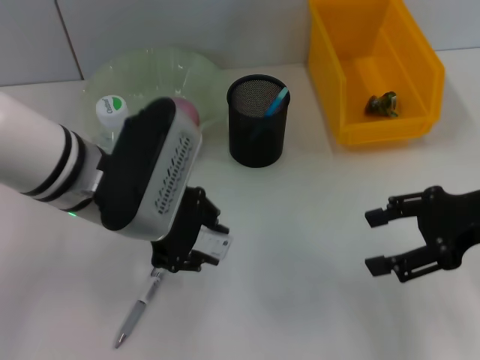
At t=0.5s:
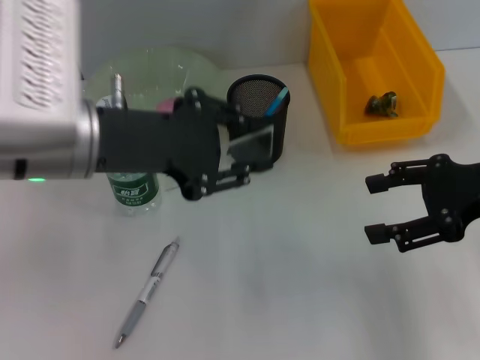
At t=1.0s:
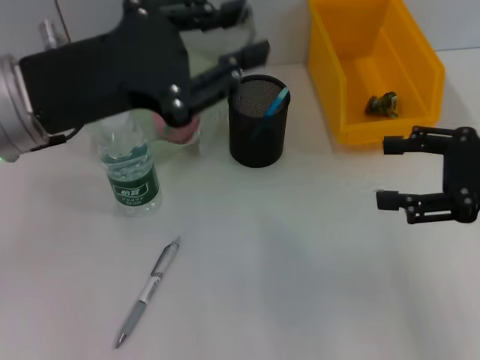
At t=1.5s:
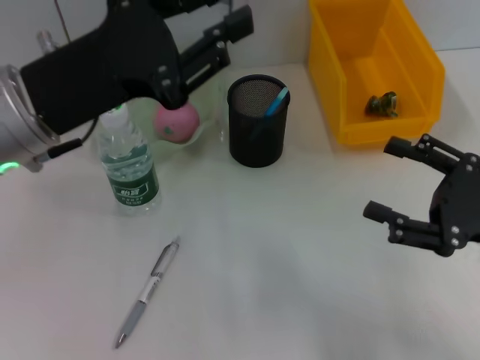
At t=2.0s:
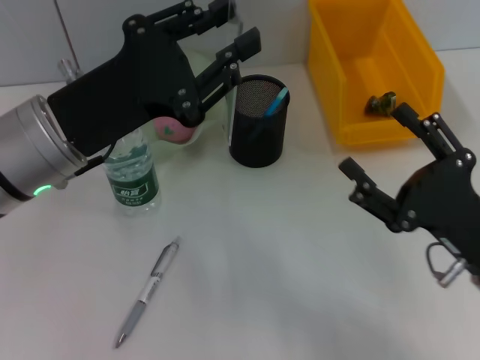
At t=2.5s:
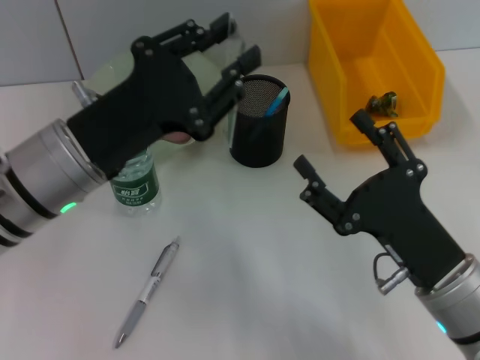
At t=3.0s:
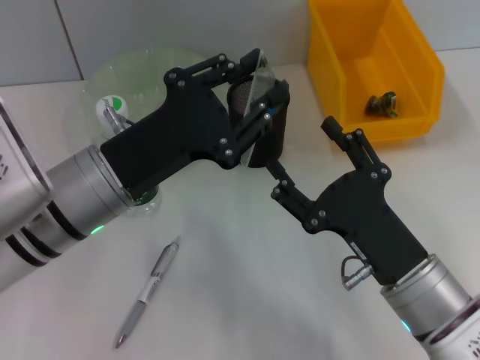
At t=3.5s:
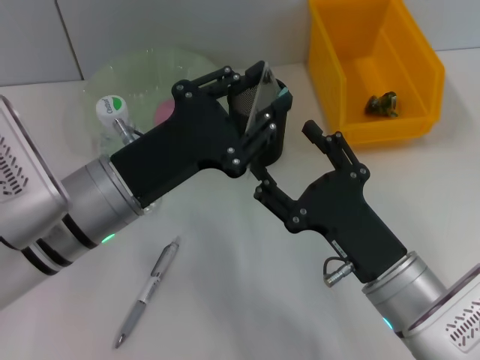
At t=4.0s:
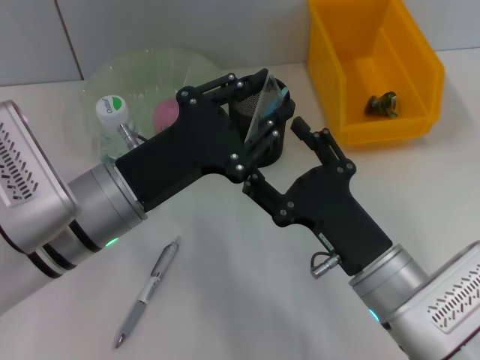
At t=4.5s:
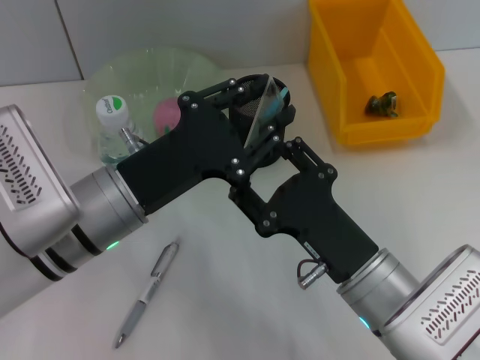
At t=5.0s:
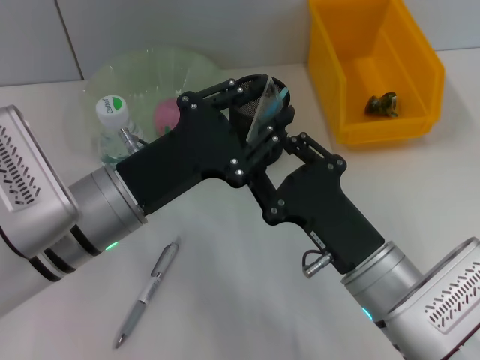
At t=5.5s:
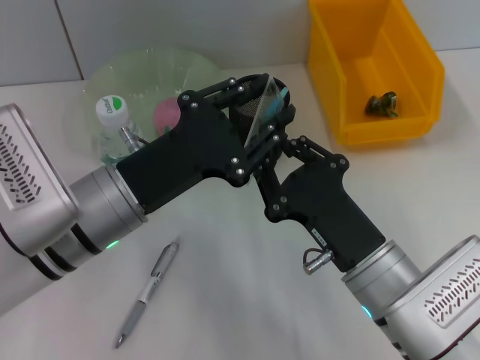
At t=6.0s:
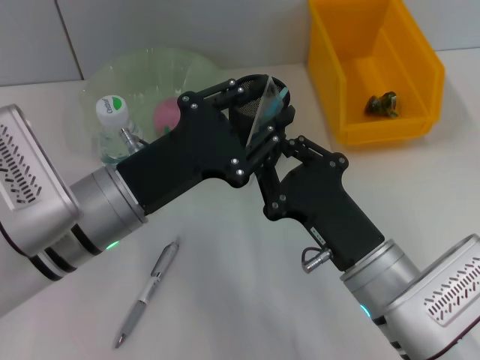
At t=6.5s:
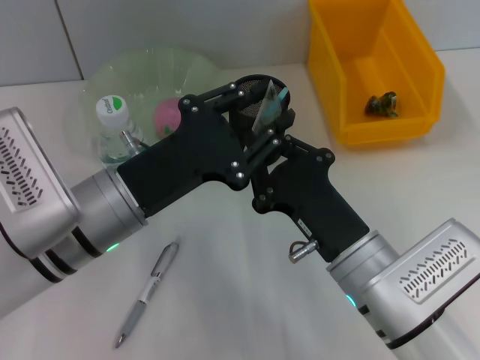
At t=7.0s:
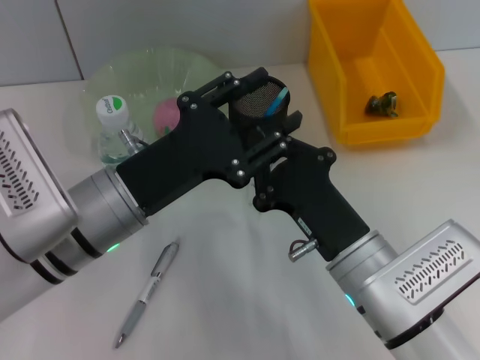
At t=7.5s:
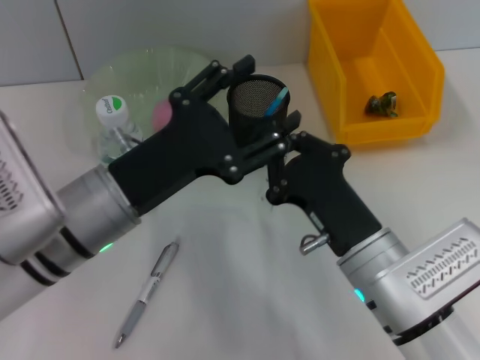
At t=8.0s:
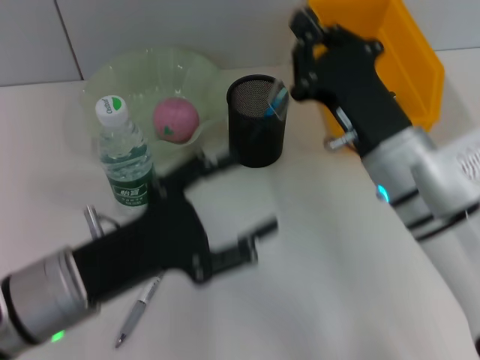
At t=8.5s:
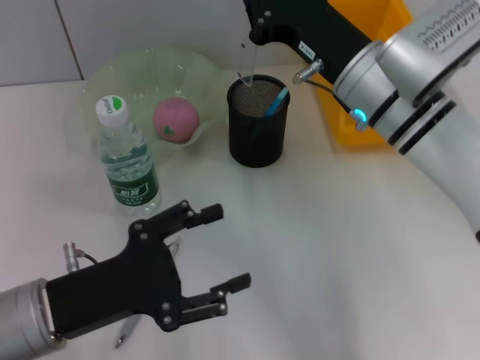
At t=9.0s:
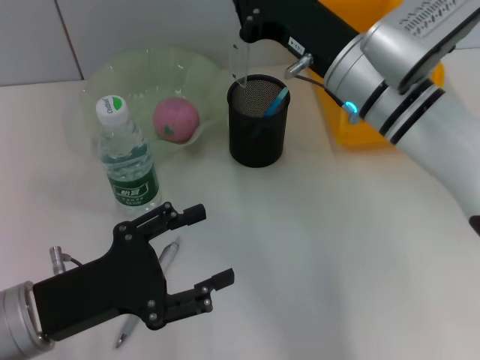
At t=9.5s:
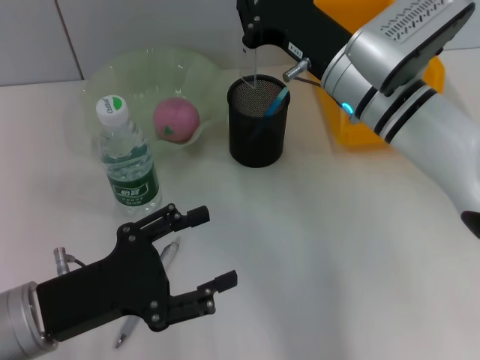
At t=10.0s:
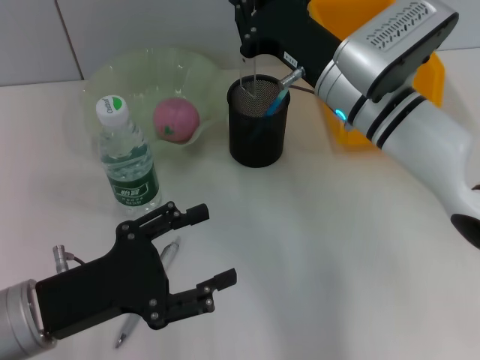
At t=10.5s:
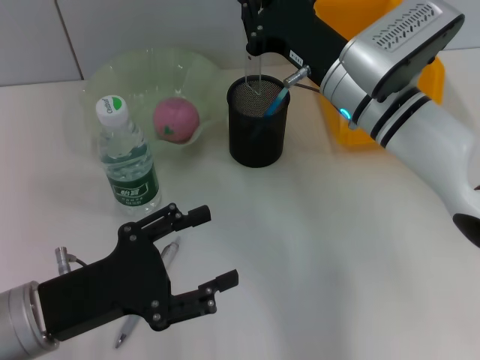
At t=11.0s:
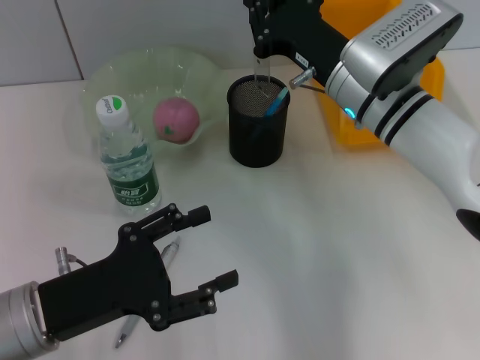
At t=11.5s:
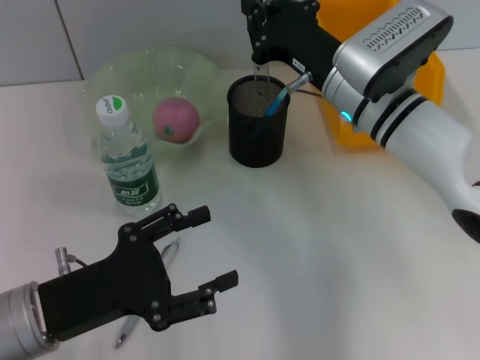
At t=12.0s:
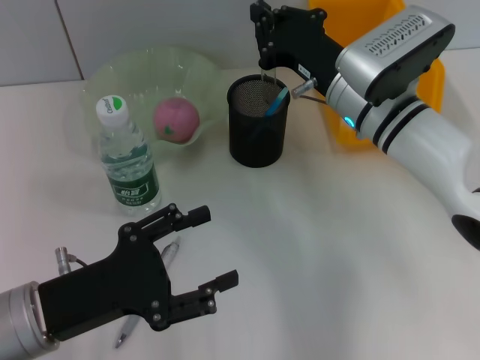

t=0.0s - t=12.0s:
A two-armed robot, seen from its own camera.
Step, t=0.0s - t=8.0s: Pass the ruler from the left hand to the right hand.
t=0.0s - t=2.0s: The right gripper moves downward, backward and to the left, approximately 15 cm.
t=2.0s - t=4.0s: The left gripper travels downward by some 5 cm. Meanwhile the right gripper heads to the left, covering some 10 cm.
t=4.0s - t=6.0s: The right gripper closes its fingers.
t=6.0s - t=8.0s: The right gripper goes some 10 cm forward and upward, while the left gripper shifts roughly 5 cm backward, and opens its fingers.
t=8.0s - t=10.0s: The right gripper goes roughly 10 cm forward.
t=10.0s - t=12.0s: The grippers move only a little.

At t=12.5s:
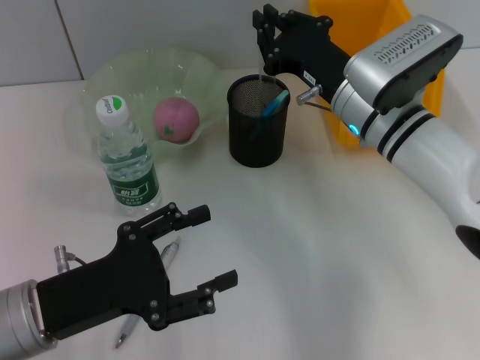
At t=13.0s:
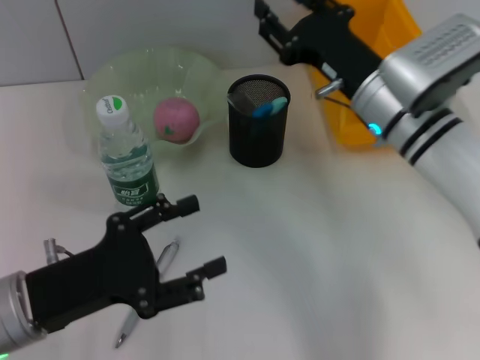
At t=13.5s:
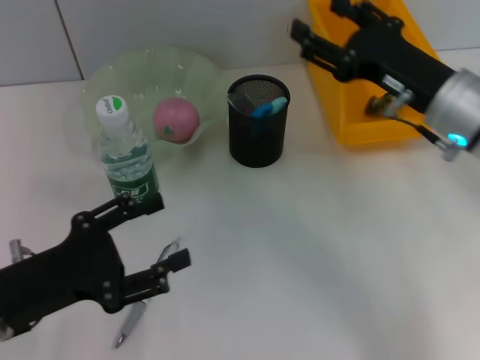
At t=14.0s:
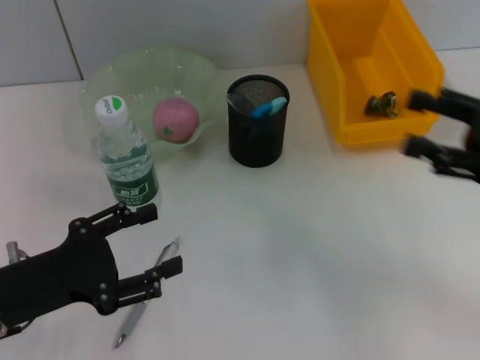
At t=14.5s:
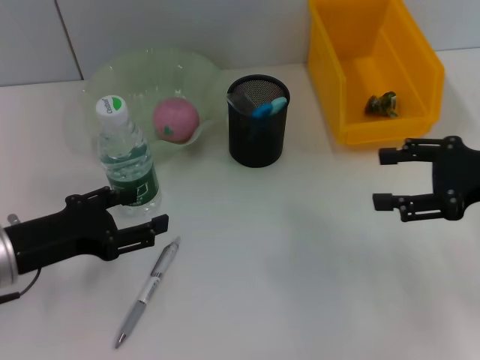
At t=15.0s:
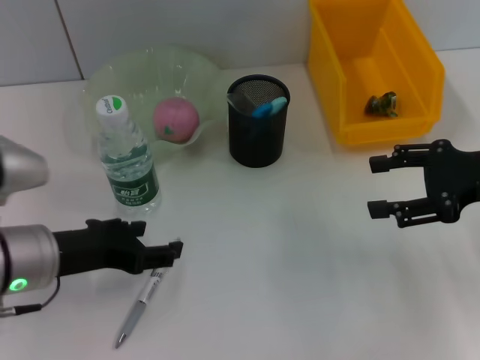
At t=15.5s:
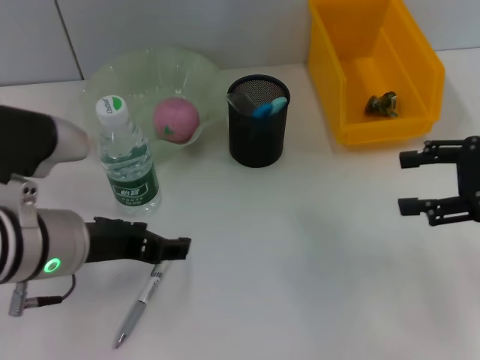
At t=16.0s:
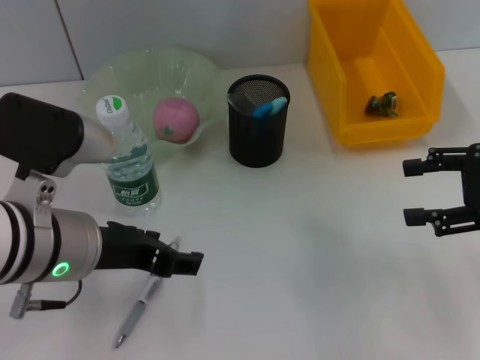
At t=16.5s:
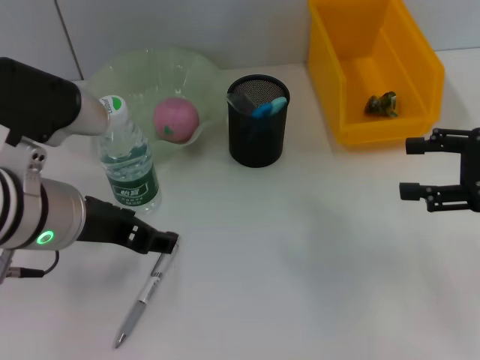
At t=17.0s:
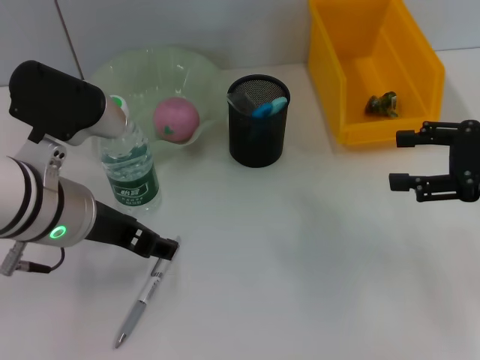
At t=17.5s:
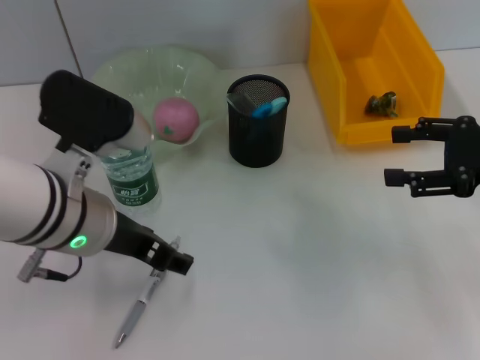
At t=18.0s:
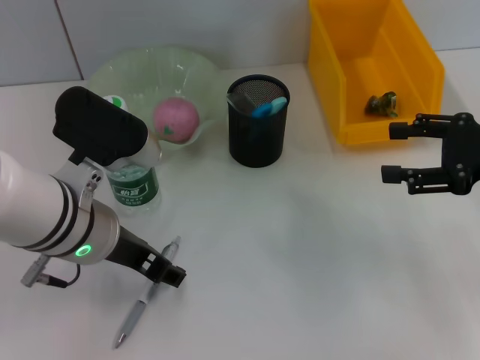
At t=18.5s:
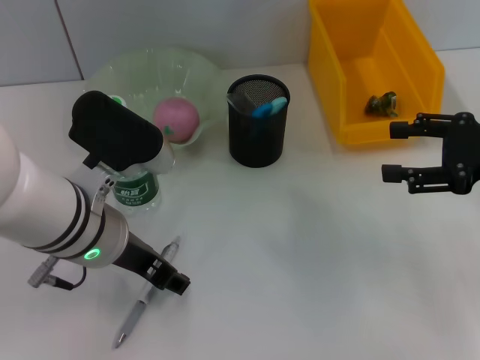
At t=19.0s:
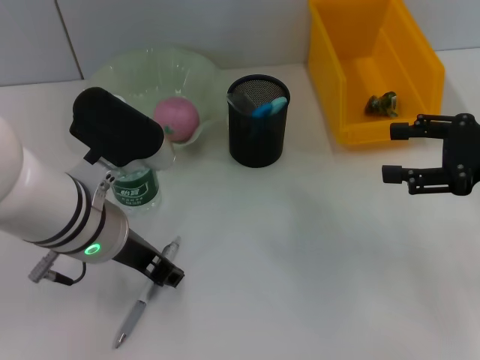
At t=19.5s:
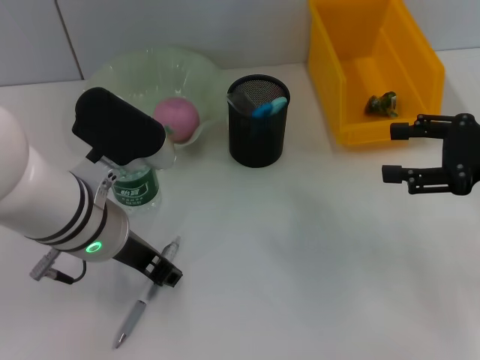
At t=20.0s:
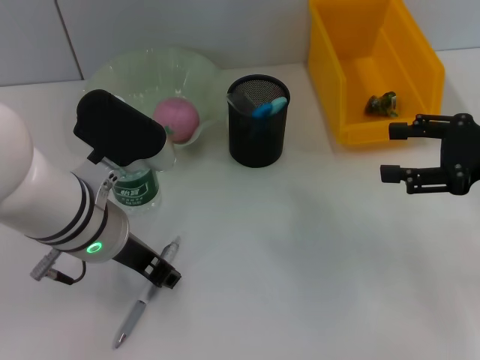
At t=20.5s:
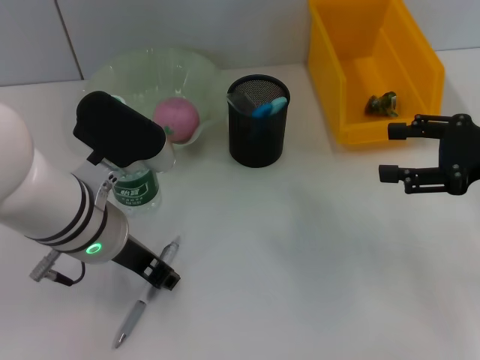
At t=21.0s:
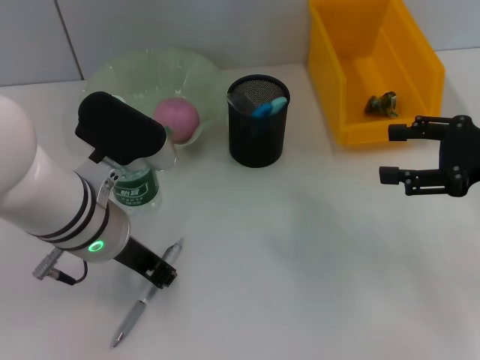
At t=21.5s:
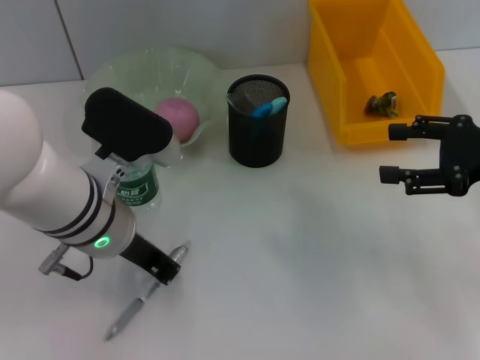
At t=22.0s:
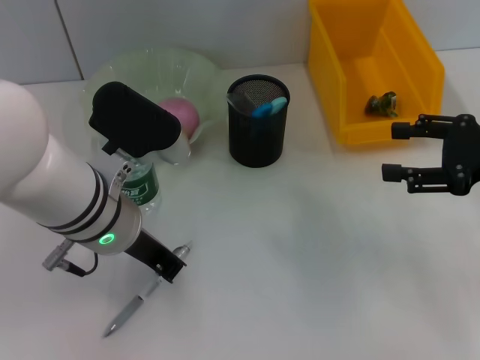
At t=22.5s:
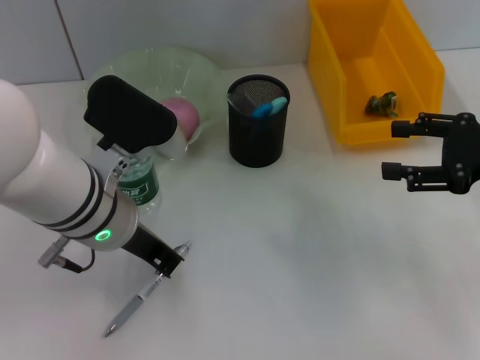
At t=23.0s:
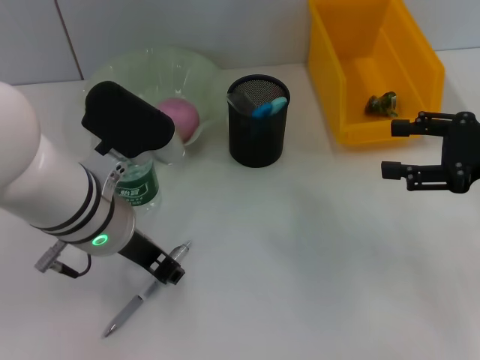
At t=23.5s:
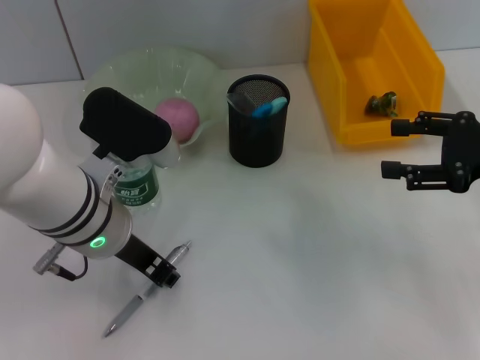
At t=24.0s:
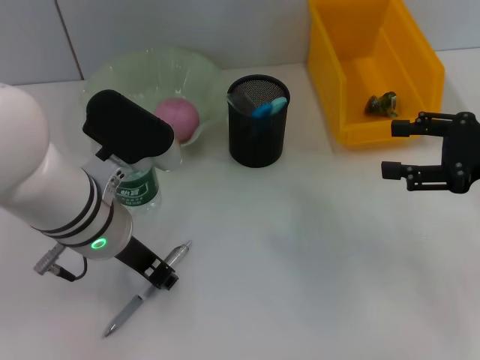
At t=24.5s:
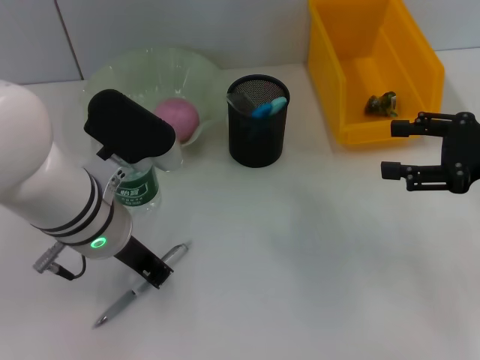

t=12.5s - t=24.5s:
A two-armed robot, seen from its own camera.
Step, t=13.5s - t=21.0s: Grab the gray spring-action pen with the left hand.
t=12.5s - t=14.5s: The left gripper is displaced forward by some 5 cm. The right gripper shifts approximately 20 cm to the right and backward, and opens up.
t=14.5s - t=16.5s: The left gripper travels to the right and upward by roughly 10 cm.
t=16.5s - t=18.5s: The grippers make only small movements.
t=18.5s - t=20.5s: The left gripper closes up.
t=20.5s - t=22.5s: The left gripper closes.
t=22.5s - t=24.5s: Neither gripper changes place.

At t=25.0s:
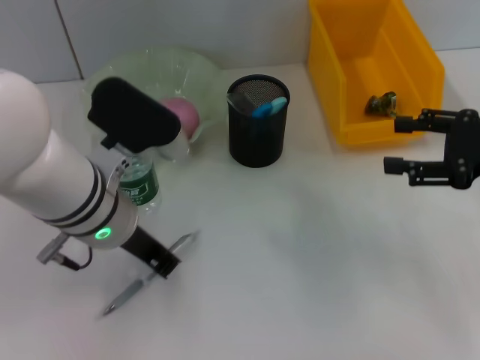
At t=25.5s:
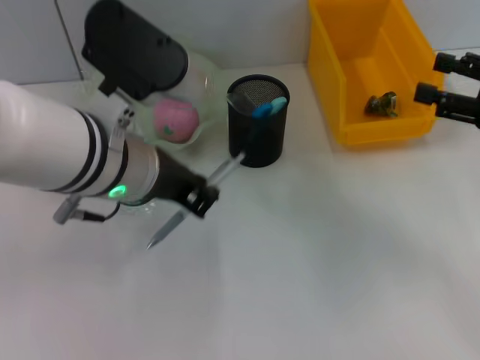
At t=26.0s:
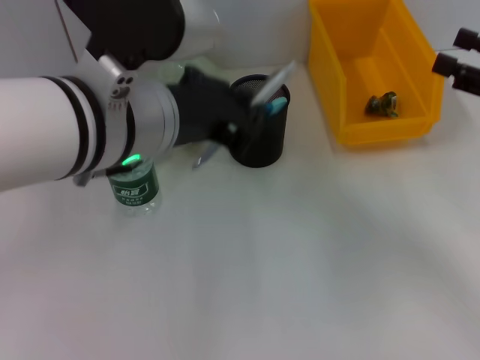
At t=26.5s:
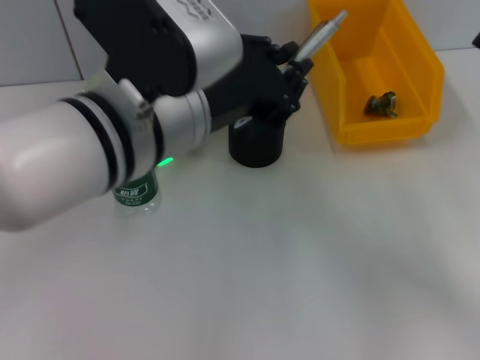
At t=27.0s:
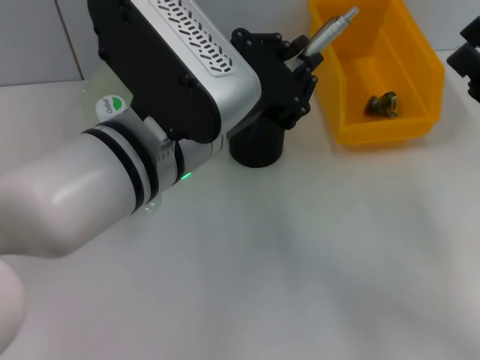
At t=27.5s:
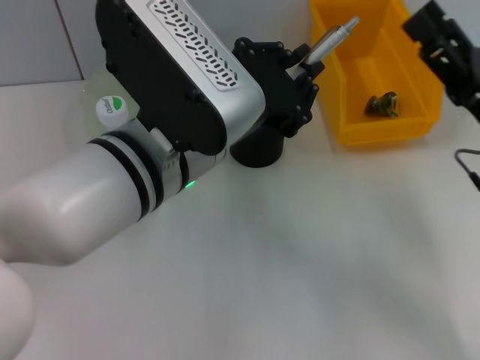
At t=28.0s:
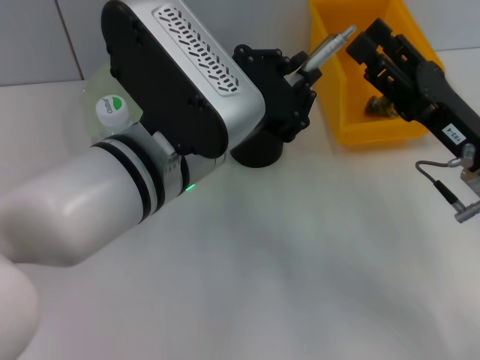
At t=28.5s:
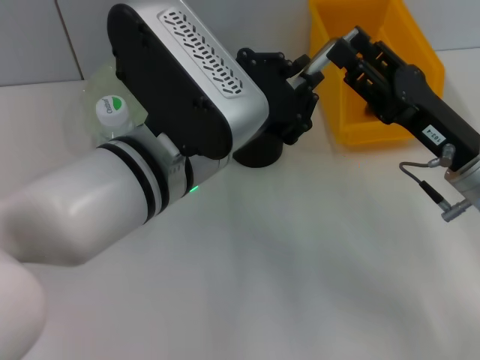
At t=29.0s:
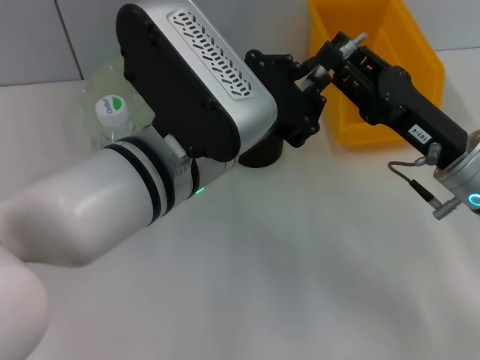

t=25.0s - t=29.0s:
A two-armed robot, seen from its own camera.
t=25.0s - t=27.0s: The left gripper is displaced upward and to the right by some 10 cm, while the right gripper shifts approximately 5 cm backward.
t=27.0s - t=29.0s: The right gripper shifts some 10 cm to the left.
